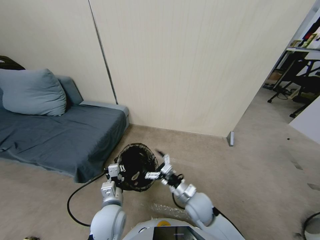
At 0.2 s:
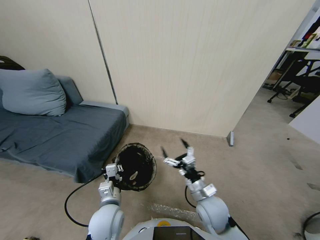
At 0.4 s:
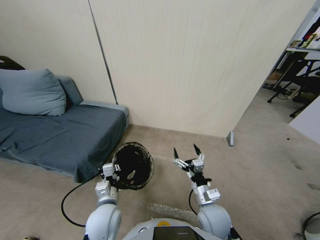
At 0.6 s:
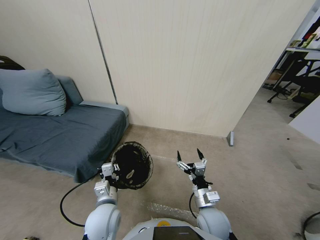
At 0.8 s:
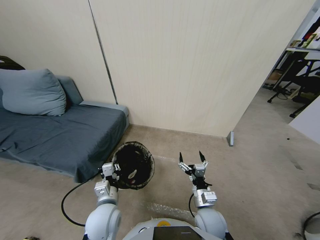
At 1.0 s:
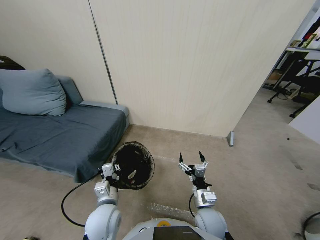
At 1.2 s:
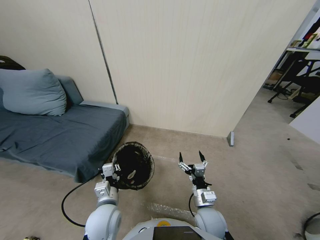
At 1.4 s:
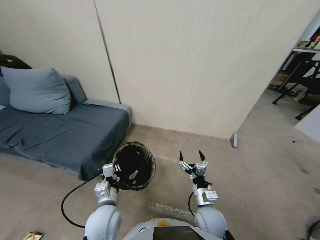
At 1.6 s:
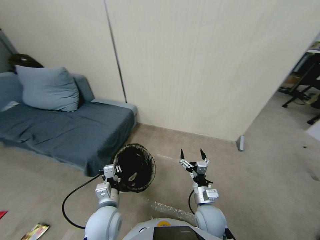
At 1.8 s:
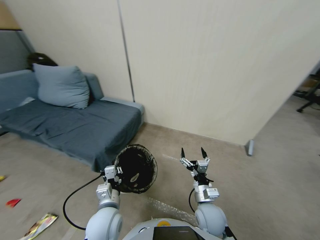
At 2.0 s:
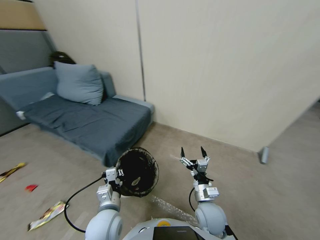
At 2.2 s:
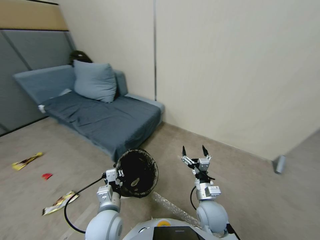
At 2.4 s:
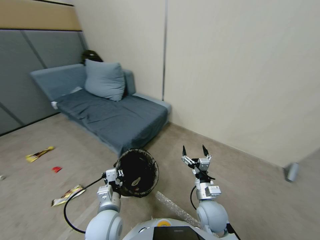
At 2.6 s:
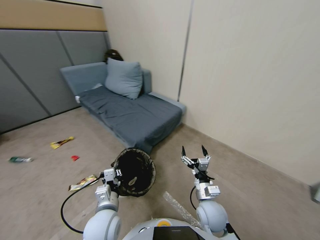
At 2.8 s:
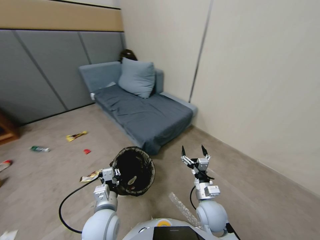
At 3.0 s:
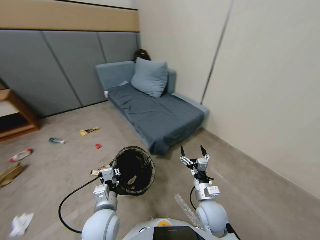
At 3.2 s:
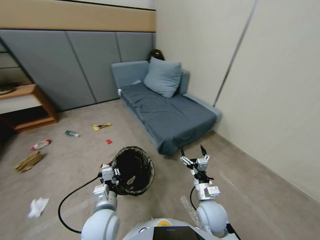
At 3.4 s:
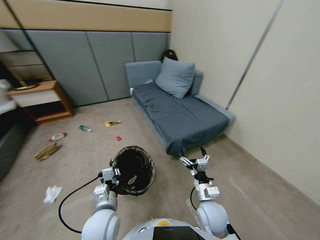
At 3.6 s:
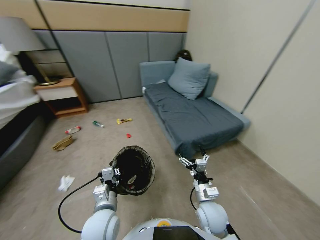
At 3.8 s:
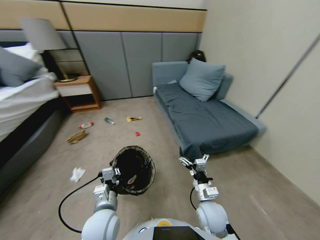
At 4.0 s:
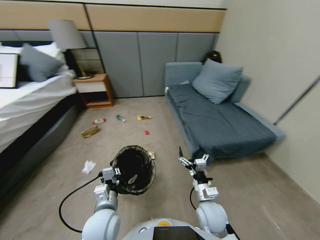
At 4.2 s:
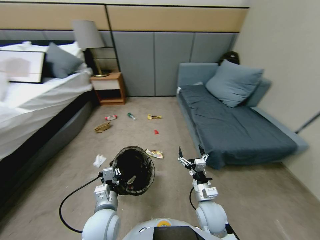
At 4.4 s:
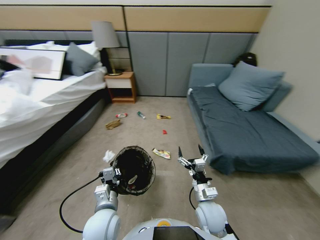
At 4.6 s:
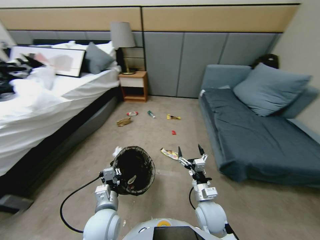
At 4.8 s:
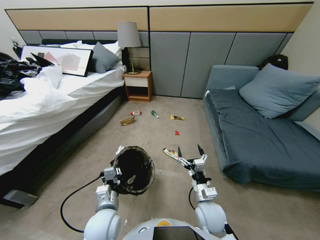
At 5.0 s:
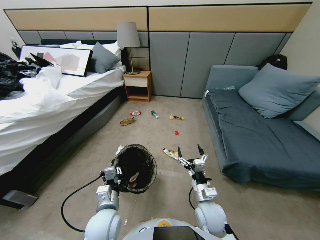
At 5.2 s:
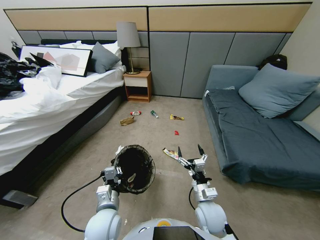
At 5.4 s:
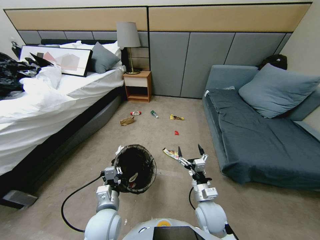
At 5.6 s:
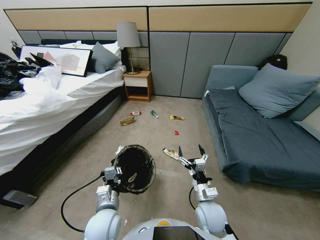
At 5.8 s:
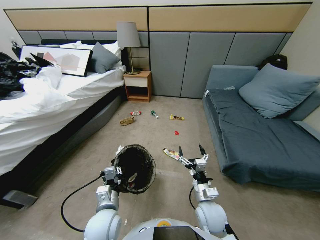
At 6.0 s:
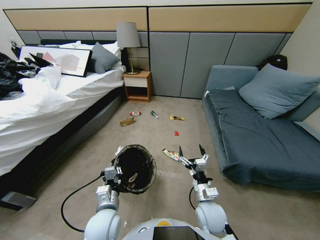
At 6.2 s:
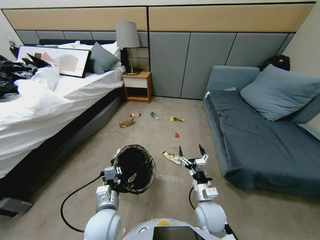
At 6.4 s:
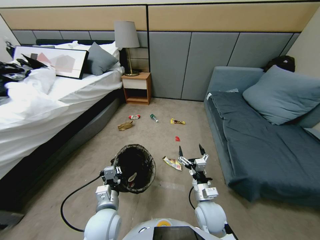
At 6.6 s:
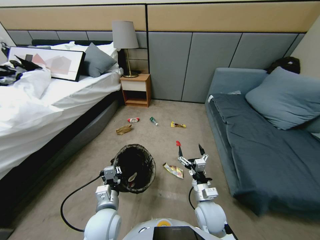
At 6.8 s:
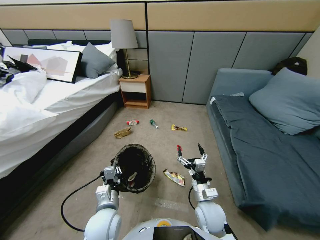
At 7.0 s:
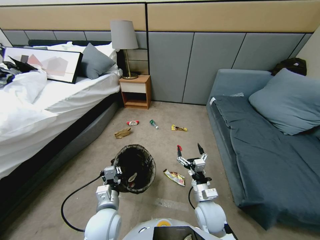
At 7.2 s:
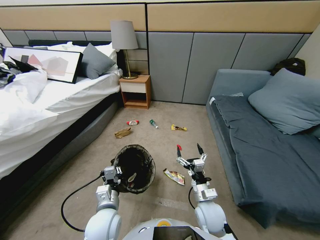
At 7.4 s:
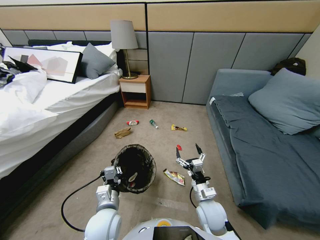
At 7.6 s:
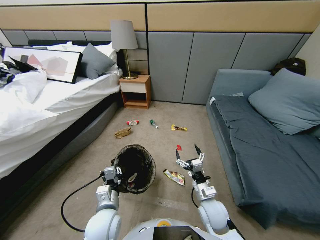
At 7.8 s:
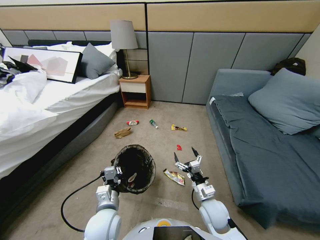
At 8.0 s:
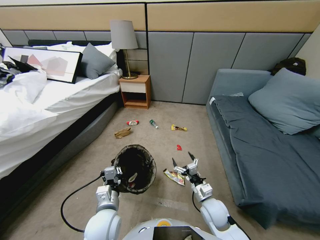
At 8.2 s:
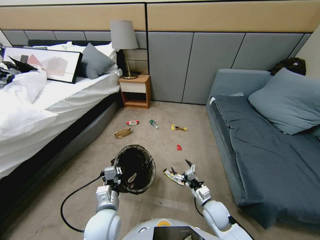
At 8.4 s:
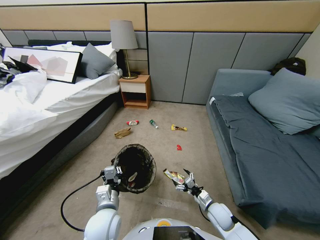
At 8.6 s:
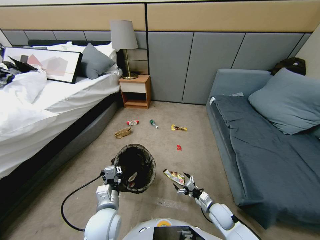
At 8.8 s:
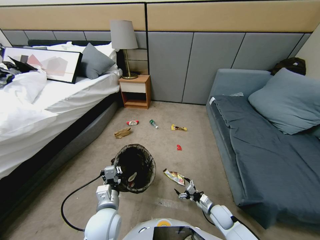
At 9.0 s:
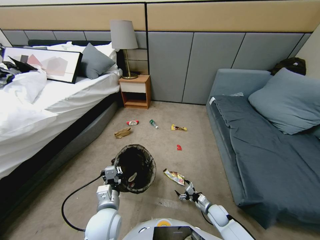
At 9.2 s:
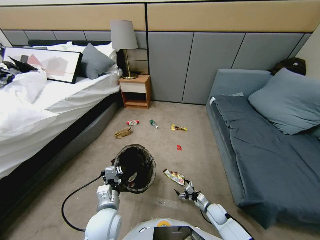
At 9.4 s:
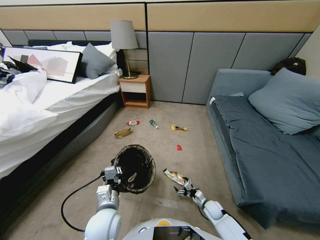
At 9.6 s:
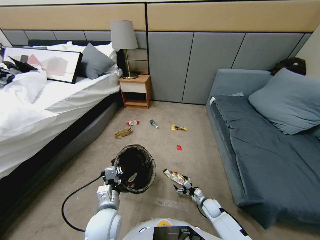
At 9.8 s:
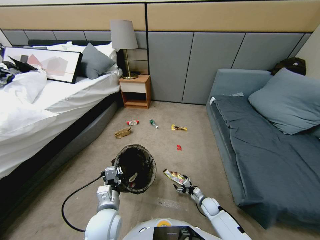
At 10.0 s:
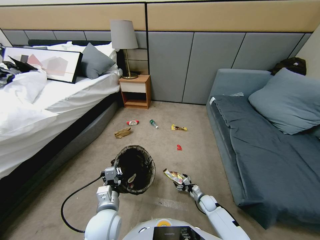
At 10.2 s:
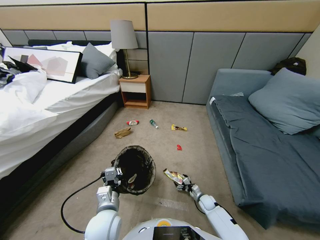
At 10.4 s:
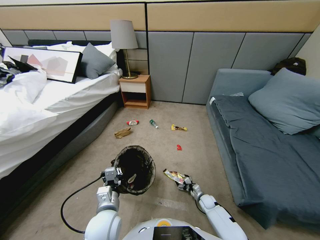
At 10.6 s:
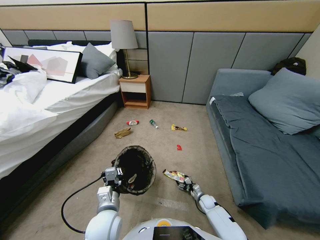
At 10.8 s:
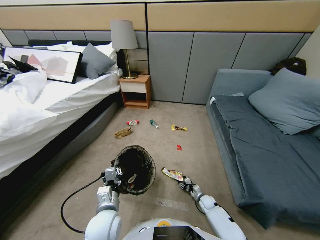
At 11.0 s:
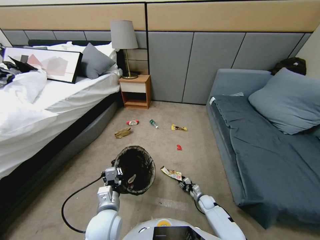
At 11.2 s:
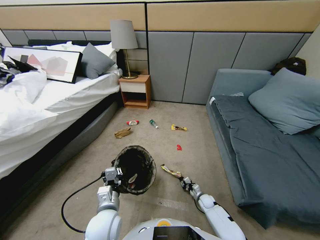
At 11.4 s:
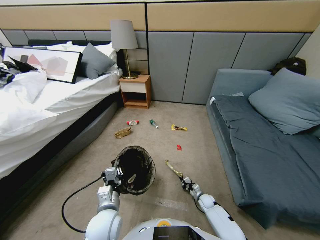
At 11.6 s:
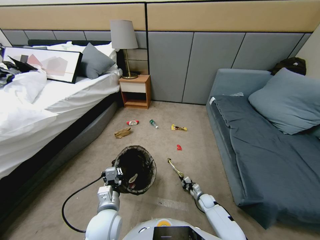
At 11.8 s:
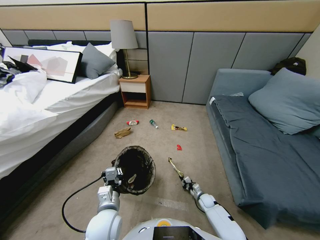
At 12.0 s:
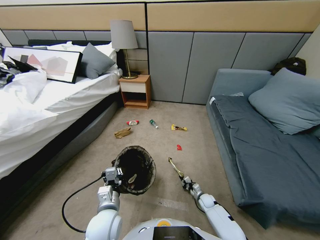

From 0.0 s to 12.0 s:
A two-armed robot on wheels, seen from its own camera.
Task of the whole recording: Pick up the trash bin, then pick up the garbage from the floor and place it into the trash bin.
From 7.6 s to 9.0 s: The right gripper is displaced downward and to the right by approximately 20 cm.
From 9.0 s to 10.4 s: The right gripper shifts about 10 cm downward and forward.
From 10.4 s to 12.0 s: The right gripper closes up.

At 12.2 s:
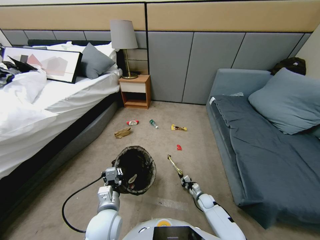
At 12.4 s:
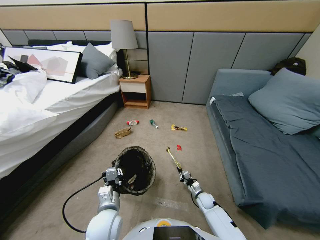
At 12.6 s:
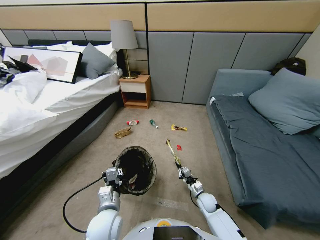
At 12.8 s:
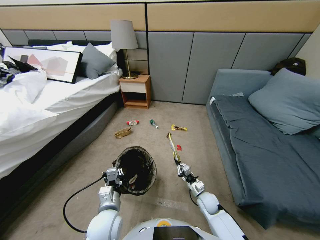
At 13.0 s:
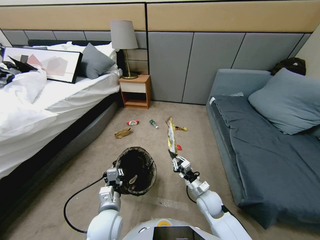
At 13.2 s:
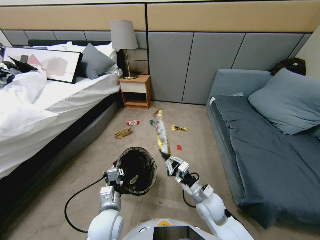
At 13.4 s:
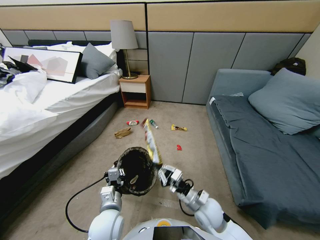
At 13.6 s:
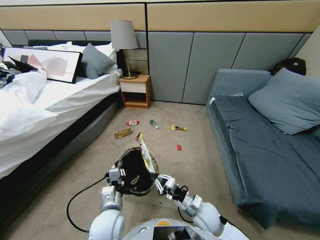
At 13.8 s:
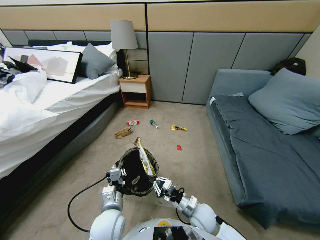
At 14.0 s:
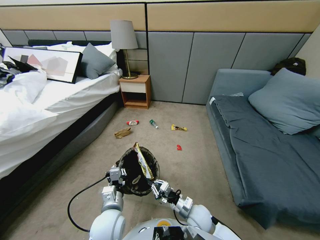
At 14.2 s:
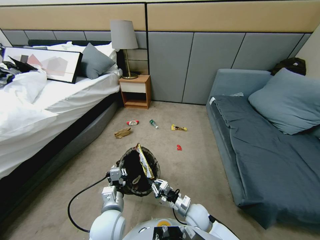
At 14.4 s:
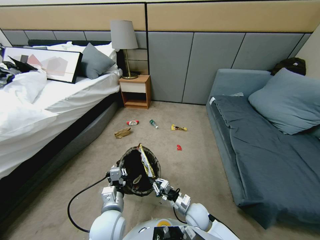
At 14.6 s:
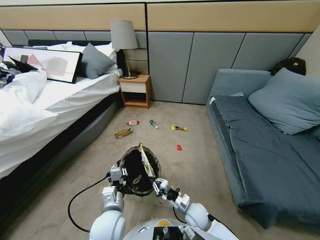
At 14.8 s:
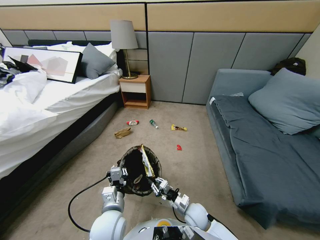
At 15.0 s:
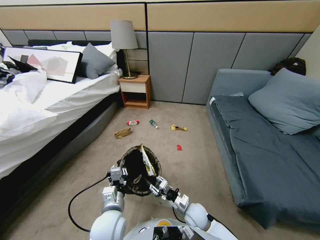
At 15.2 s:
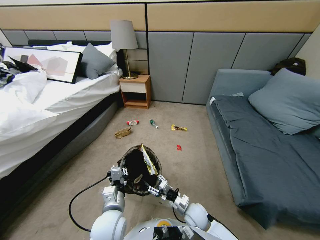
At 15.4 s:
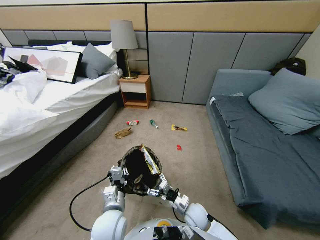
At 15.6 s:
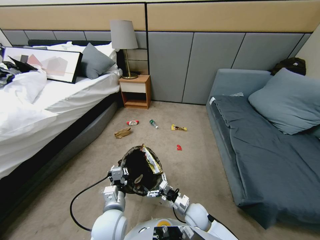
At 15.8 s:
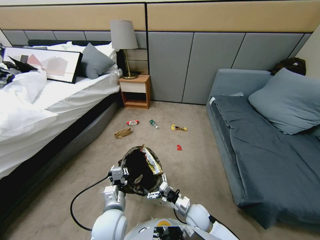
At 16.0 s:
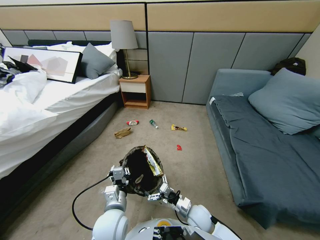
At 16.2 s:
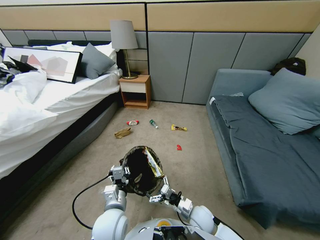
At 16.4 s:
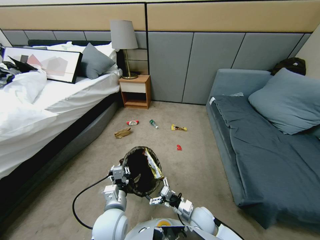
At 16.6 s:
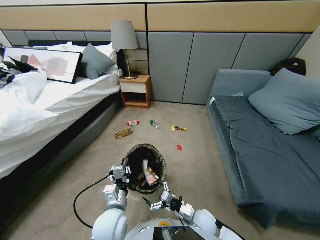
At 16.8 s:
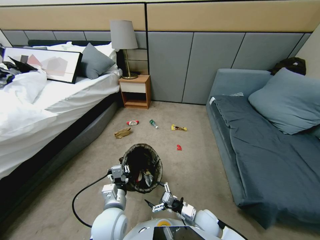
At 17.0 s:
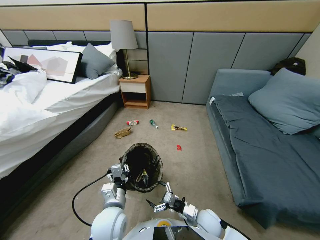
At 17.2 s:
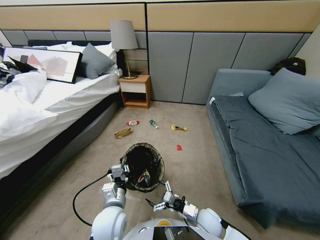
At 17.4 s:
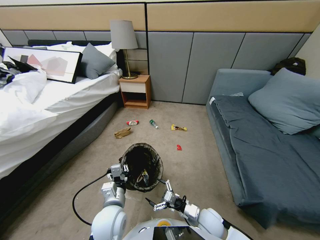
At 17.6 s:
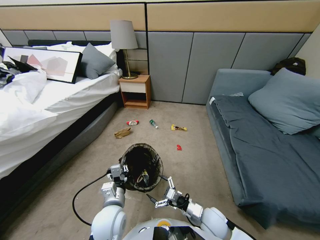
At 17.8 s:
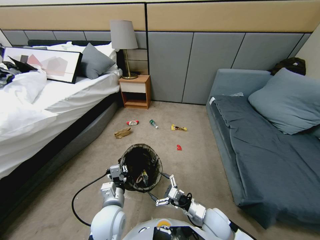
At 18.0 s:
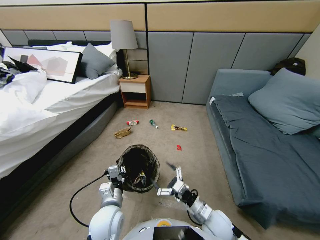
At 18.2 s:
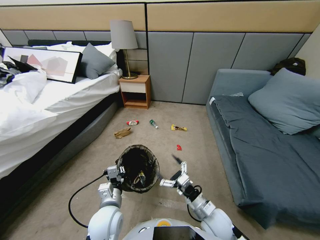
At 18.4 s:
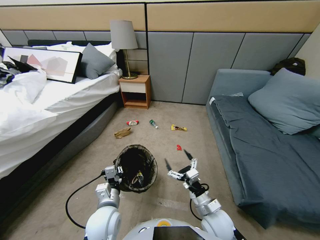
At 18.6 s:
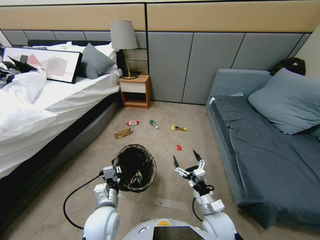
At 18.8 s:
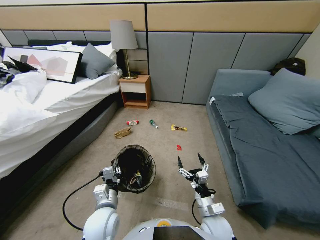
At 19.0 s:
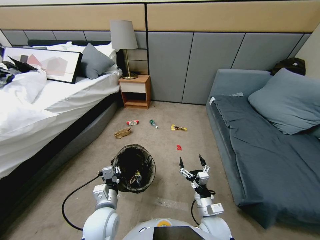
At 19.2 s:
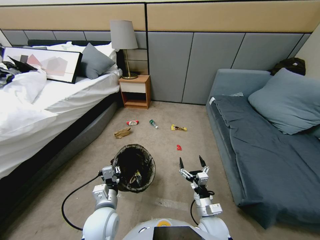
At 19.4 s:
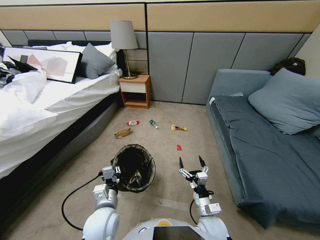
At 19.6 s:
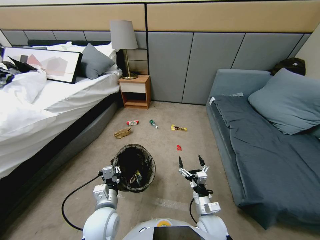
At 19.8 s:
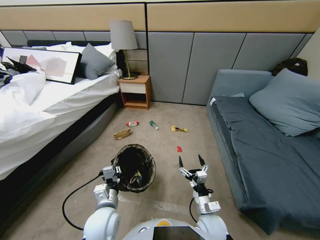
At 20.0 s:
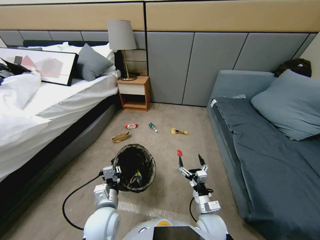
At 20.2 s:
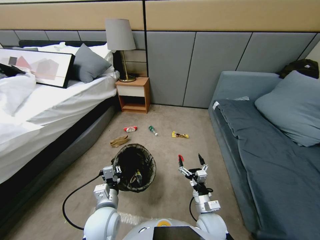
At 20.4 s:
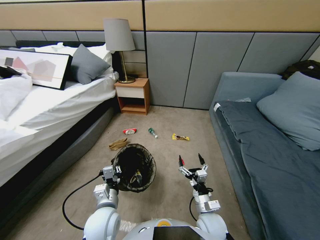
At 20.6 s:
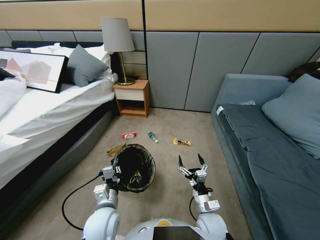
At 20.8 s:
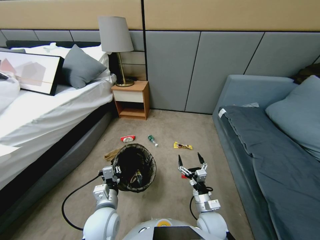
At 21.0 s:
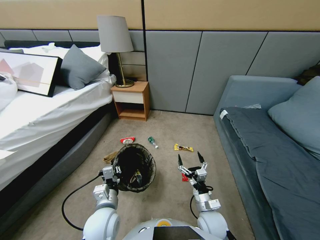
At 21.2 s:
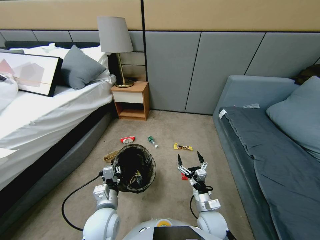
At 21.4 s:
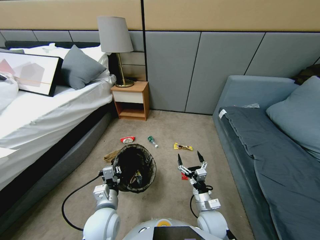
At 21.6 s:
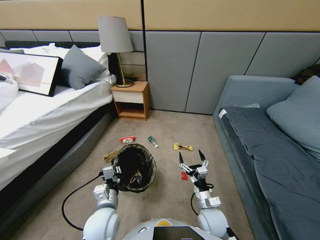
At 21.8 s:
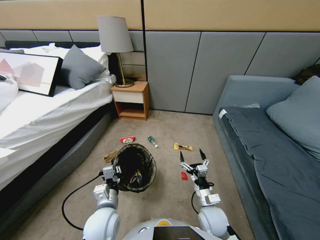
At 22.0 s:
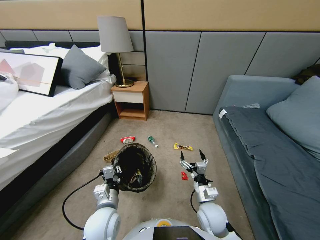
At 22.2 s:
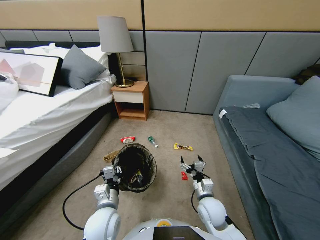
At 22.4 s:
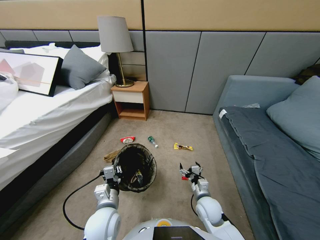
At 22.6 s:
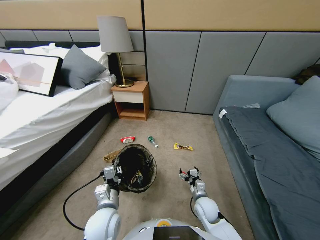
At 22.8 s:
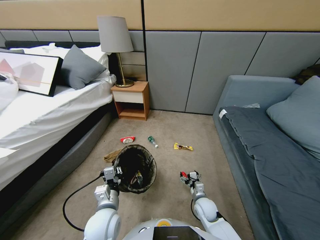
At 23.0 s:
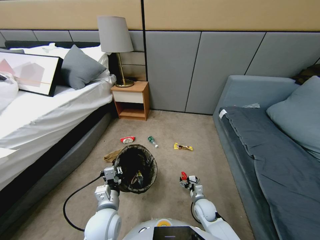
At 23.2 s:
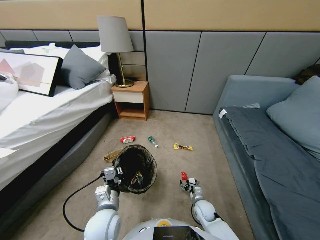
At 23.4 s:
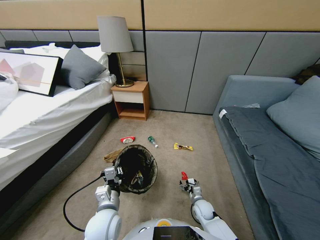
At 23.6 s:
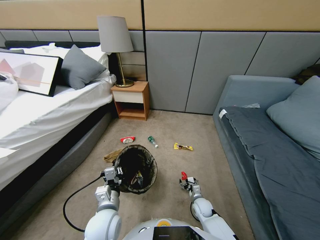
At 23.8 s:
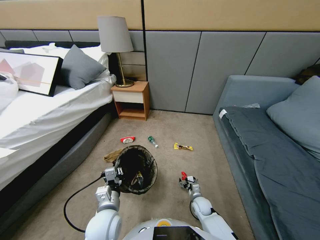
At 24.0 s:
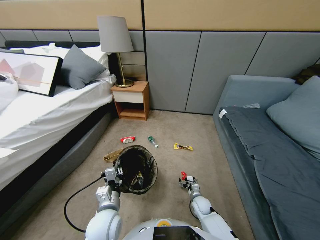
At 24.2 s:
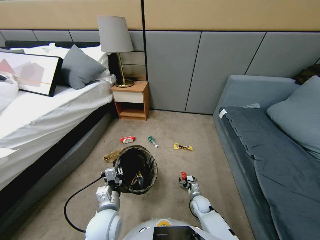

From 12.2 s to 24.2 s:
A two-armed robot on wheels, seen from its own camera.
Task of the whole recording: Pick up the trash bin, then pick up the garbage from the floor and place it into the trash bin.
From 12.2 s to 13.8 s: The right gripper shifts approximately 25 cm upward, to the left and backward.
From 13.8 s to 15.2 s: The right gripper opens its fingers.
From 15.2 s to 16.6 s: The grippers move only a little.
From 16.6 s to 18.2 s: The right gripper shifts approximately 10 cm upward.
From 21.2 s to 22.6 s: The right gripper is displaced downward and forward by roughly 10 cm.
From 22.6 s to 24.2 s: The right gripper is displaced downward by some 10 cm.
